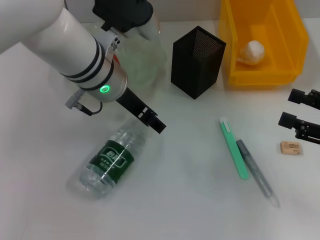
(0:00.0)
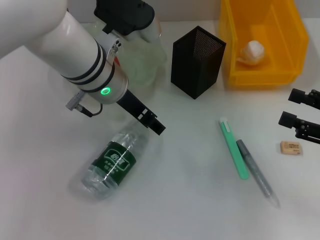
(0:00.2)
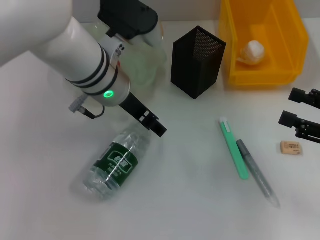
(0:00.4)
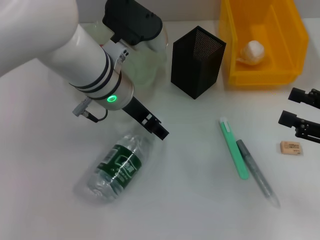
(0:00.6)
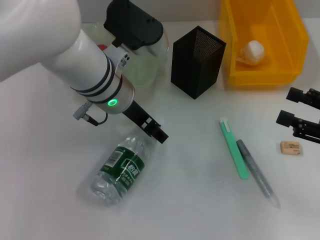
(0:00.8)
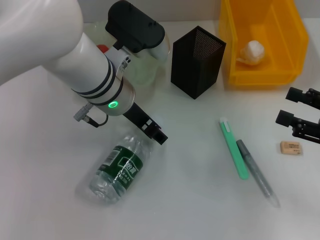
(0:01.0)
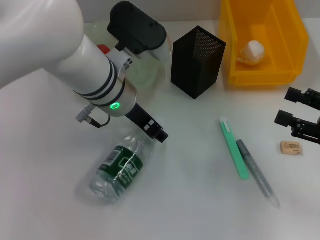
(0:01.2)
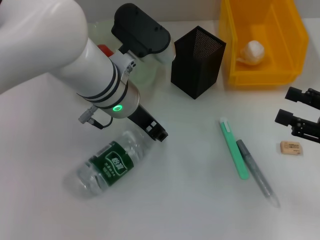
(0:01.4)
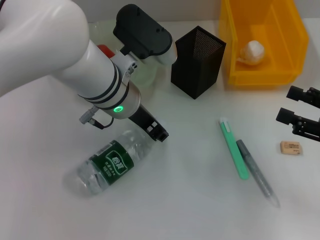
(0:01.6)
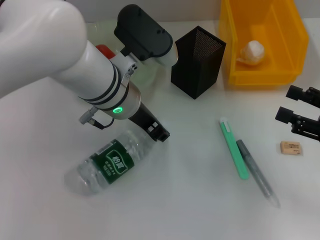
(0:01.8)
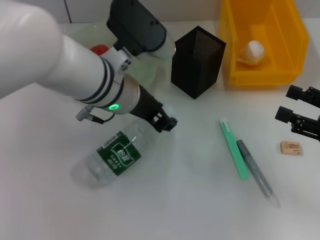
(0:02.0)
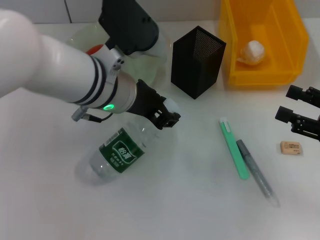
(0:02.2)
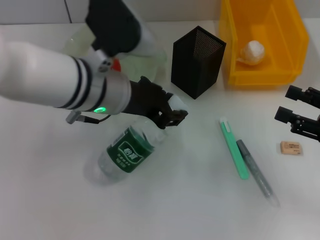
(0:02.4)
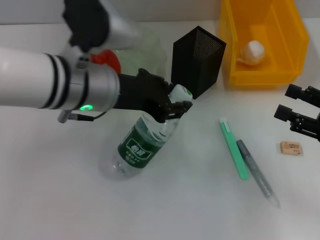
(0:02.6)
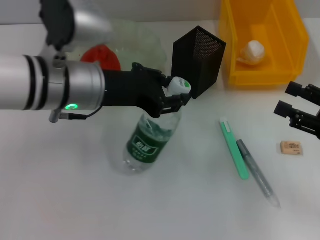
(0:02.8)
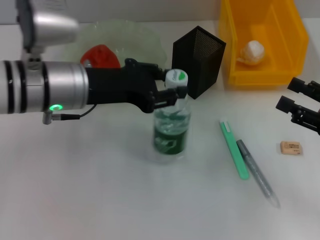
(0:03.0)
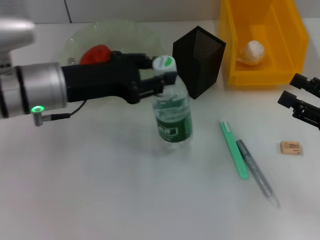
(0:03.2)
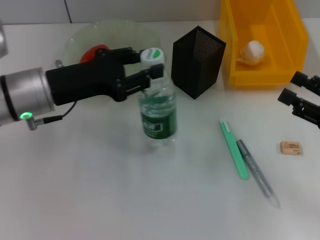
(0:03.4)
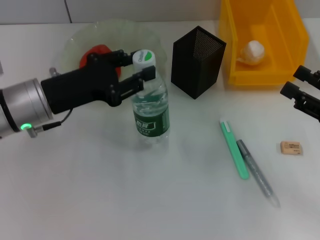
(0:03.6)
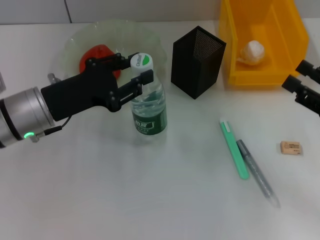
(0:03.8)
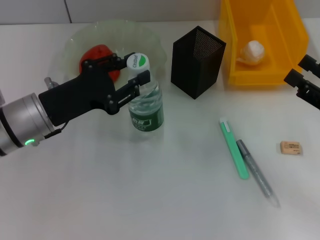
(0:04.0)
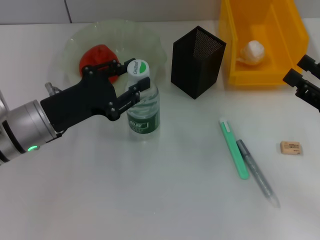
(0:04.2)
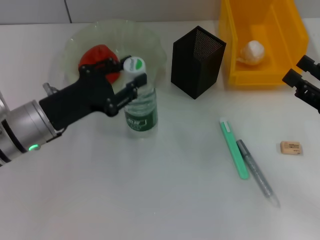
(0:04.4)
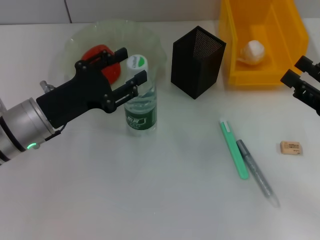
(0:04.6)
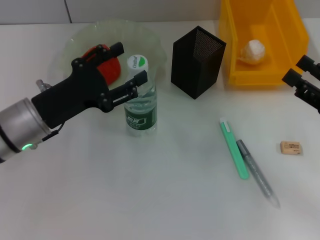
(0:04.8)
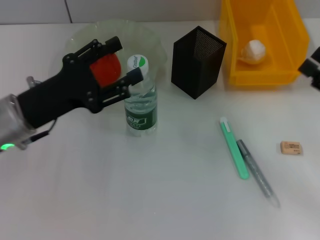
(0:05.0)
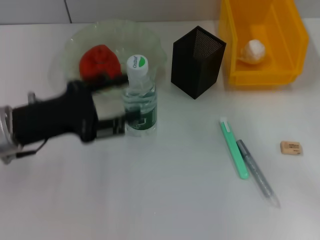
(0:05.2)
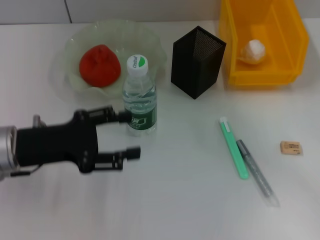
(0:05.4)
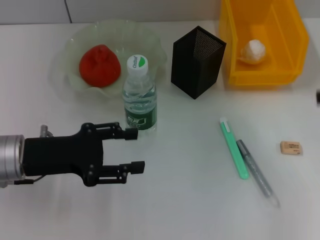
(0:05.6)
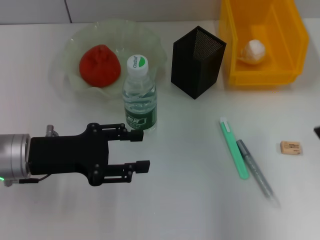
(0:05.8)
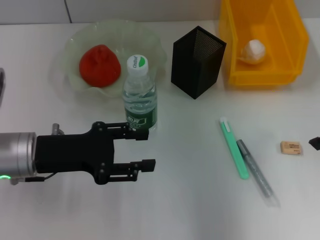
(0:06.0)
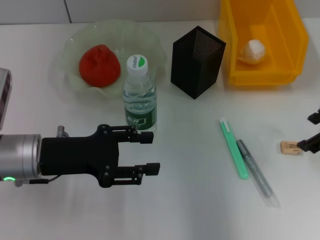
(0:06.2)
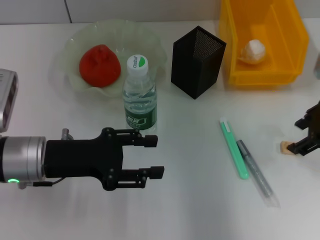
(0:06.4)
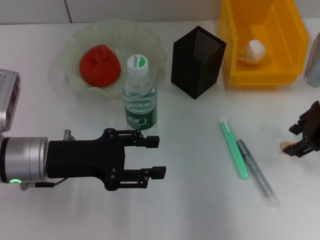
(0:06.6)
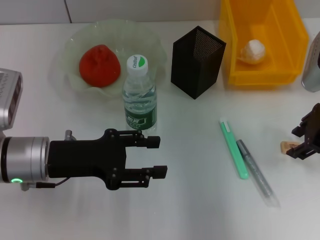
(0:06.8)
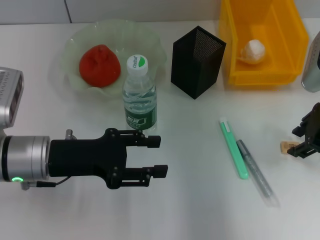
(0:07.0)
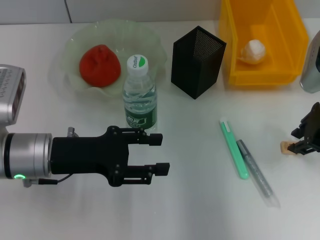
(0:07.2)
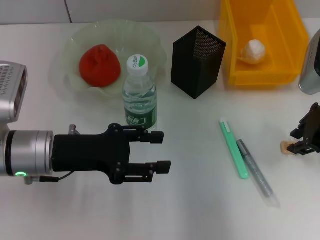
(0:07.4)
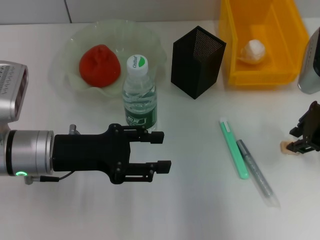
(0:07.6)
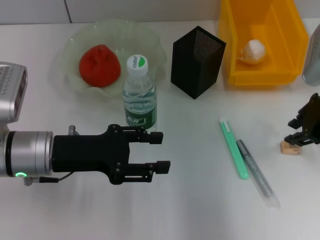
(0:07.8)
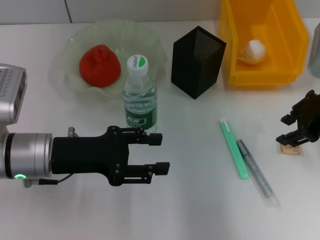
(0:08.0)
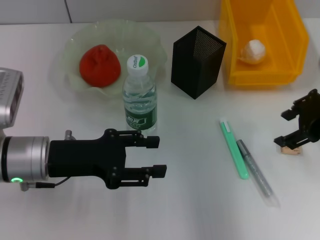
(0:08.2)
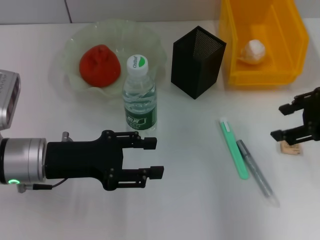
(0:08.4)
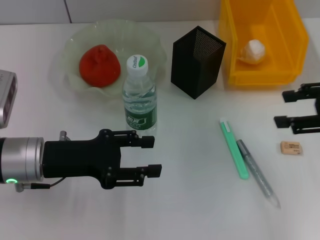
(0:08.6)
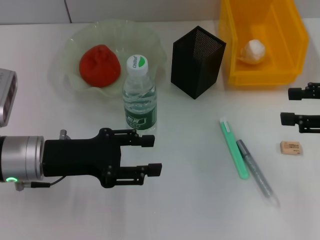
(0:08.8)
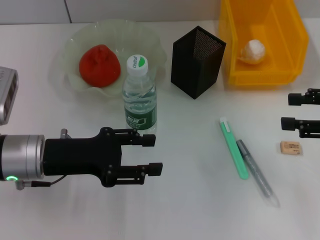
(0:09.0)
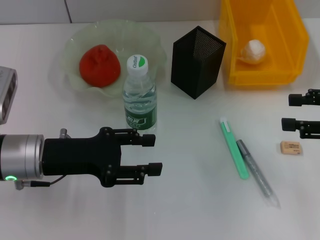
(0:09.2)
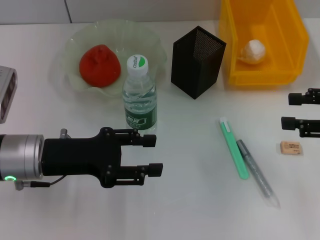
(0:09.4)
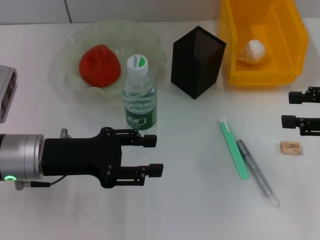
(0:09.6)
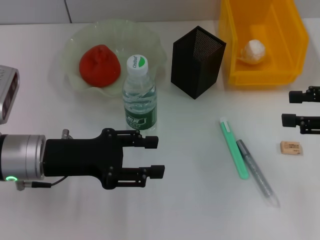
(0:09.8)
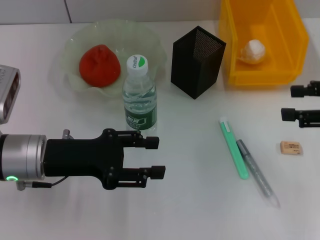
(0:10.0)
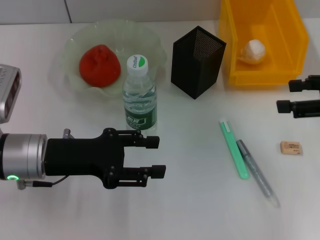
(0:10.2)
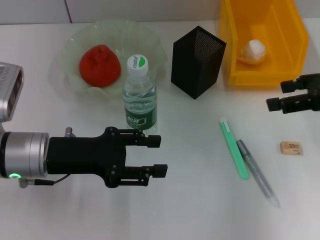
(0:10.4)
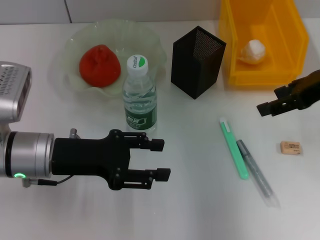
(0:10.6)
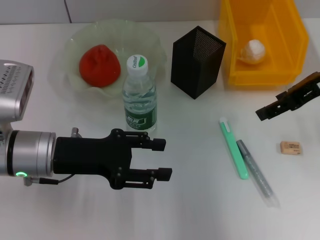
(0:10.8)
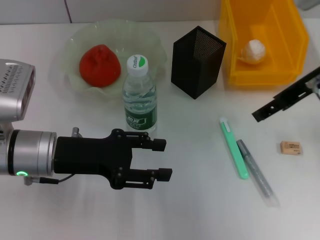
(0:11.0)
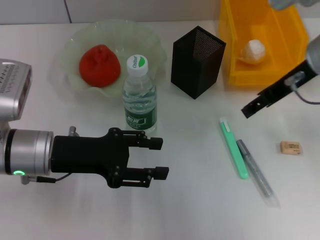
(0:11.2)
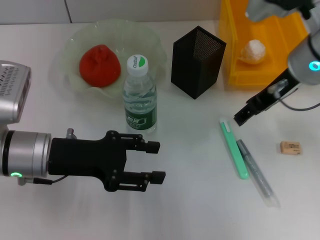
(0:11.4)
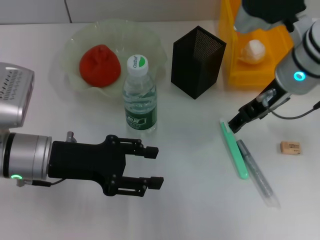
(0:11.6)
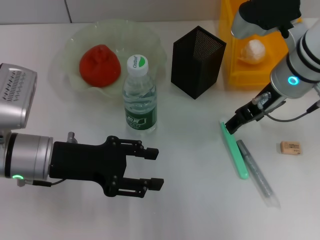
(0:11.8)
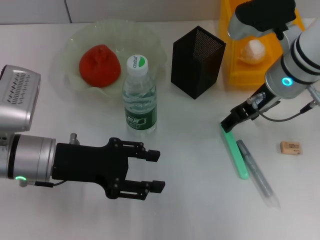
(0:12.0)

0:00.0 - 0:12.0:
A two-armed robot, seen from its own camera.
Step, 0:01.8 - 0:04.6: Place the water bottle on the table with the left hand.
0:00.0 - 0:01.6: The left gripper closes.
0:01.6 - 0:03.0: The left gripper goes approximately 10 cm to the left.
0:03.0 - 0:04.4: The left gripper goes roughly 10 cm downward and to the left.
0:04.4 - 0:06.0: The right gripper travels upward and forward by some 15 cm.
0:06.0 - 0:07.6: The right gripper heads downward, covering approximately 5 cm, and closes.
0:07.6 - 0:09.0: The right gripper travels to the right and backward by some 10 cm, and opens.
0:09.0 - 0:10.4: The right gripper changes place by approximately 5 cm.
0:10.4 - 0:12.0: The right gripper shifts approximately 15 cm to the left.

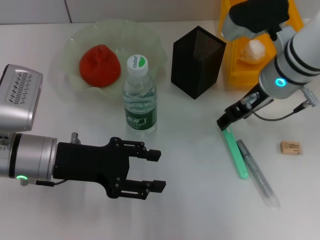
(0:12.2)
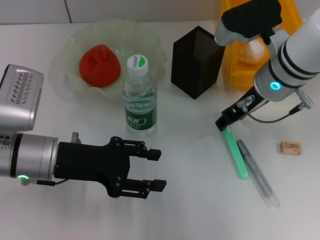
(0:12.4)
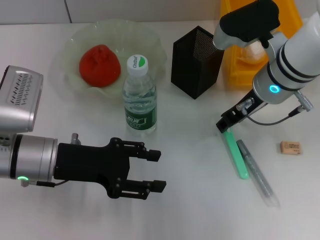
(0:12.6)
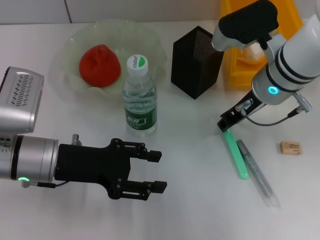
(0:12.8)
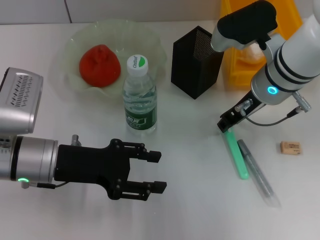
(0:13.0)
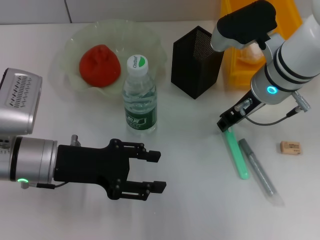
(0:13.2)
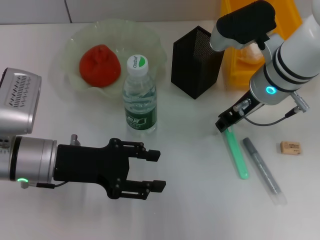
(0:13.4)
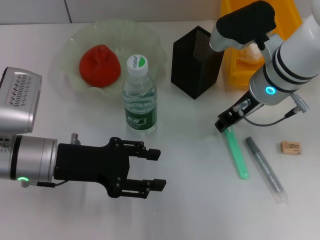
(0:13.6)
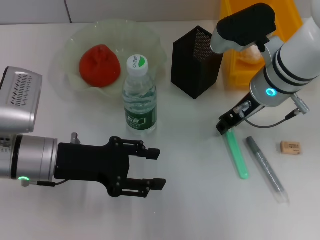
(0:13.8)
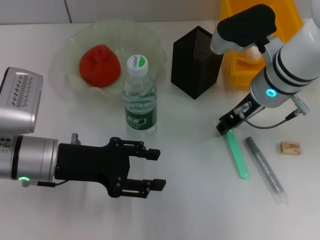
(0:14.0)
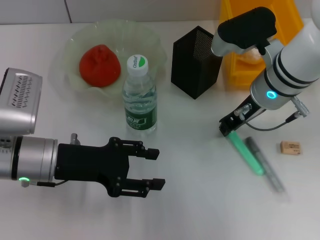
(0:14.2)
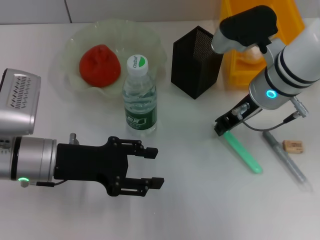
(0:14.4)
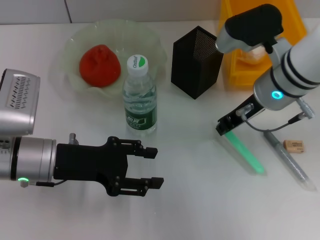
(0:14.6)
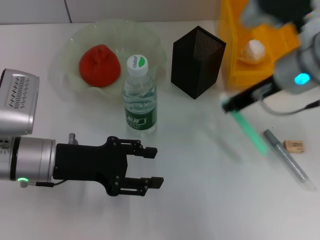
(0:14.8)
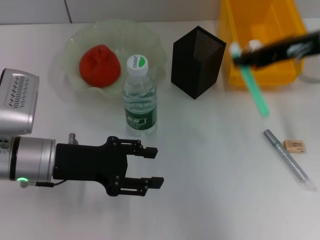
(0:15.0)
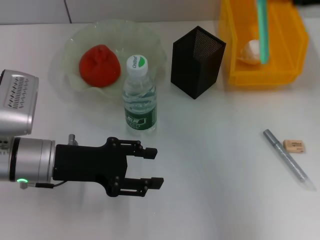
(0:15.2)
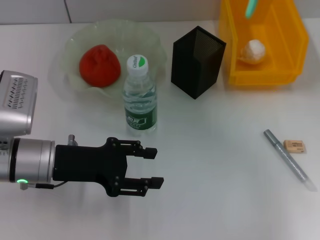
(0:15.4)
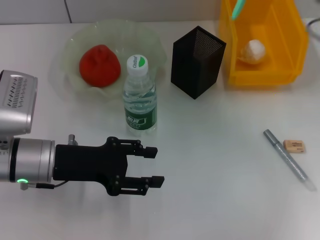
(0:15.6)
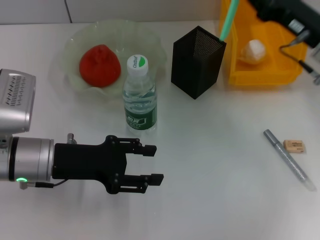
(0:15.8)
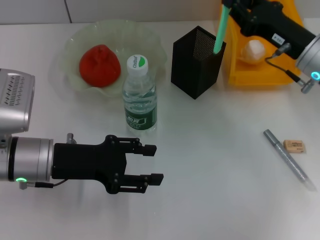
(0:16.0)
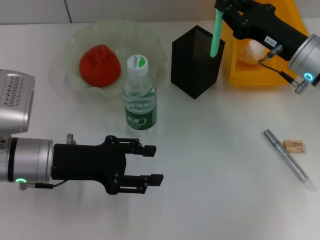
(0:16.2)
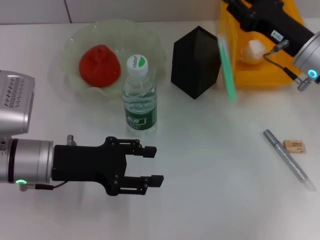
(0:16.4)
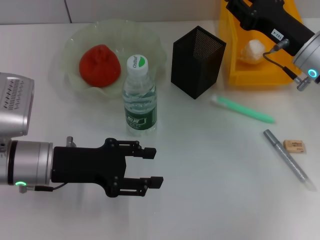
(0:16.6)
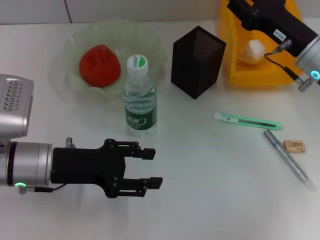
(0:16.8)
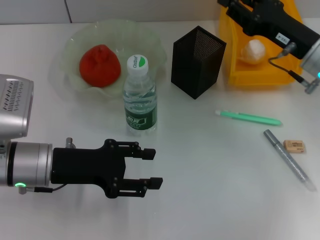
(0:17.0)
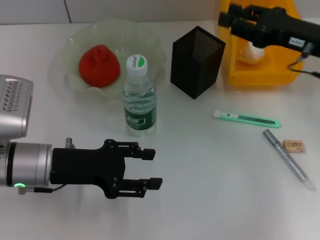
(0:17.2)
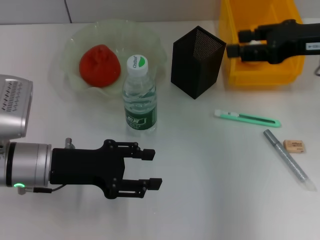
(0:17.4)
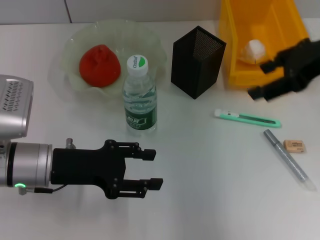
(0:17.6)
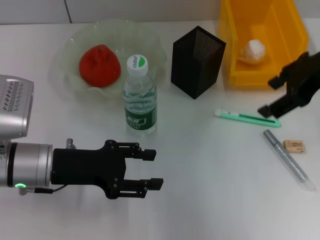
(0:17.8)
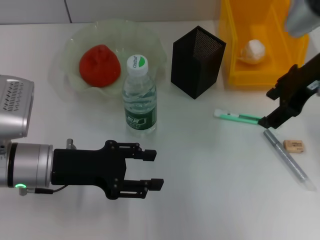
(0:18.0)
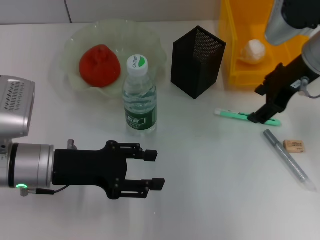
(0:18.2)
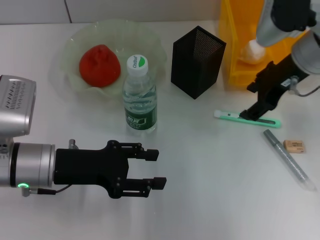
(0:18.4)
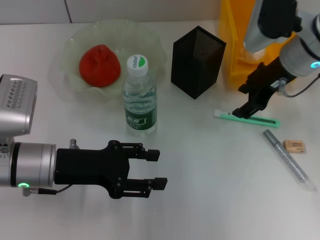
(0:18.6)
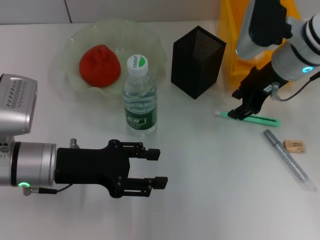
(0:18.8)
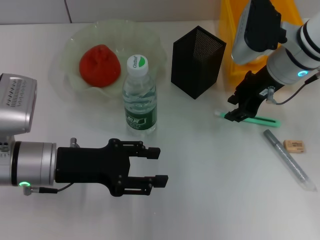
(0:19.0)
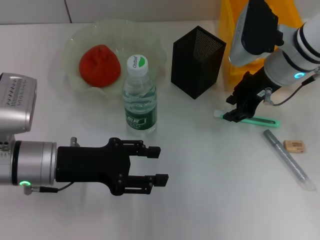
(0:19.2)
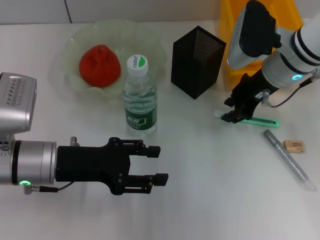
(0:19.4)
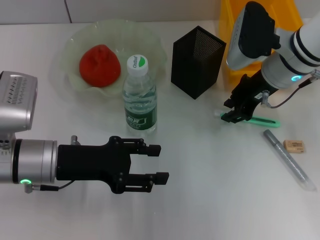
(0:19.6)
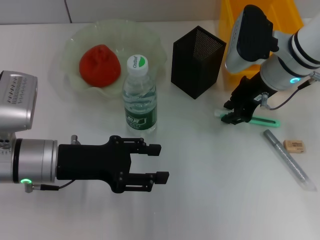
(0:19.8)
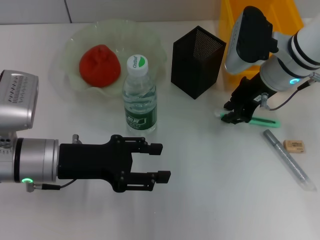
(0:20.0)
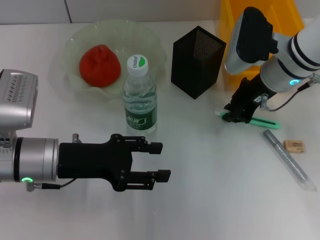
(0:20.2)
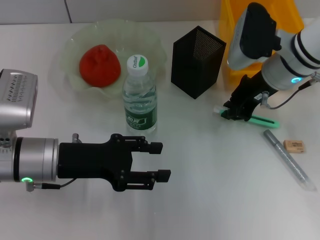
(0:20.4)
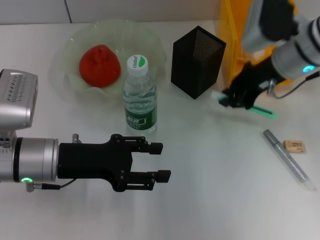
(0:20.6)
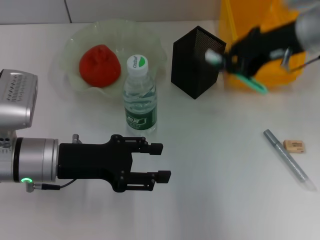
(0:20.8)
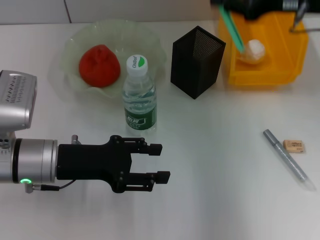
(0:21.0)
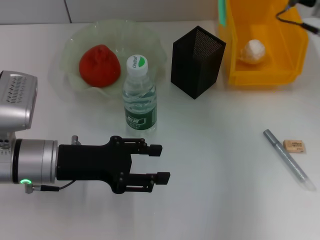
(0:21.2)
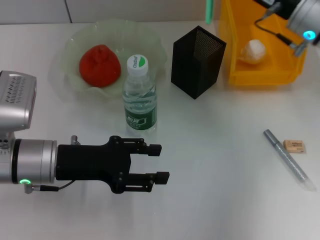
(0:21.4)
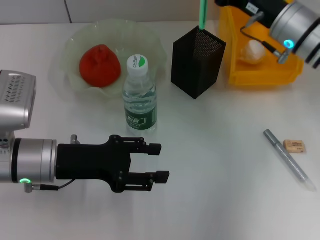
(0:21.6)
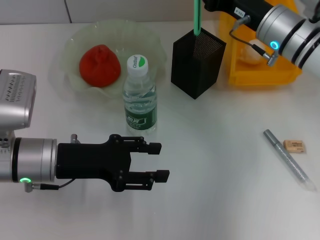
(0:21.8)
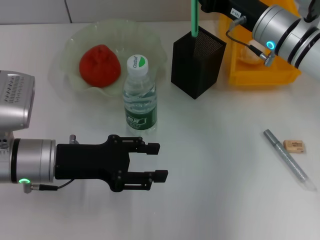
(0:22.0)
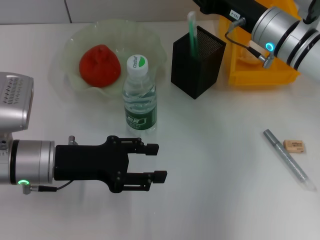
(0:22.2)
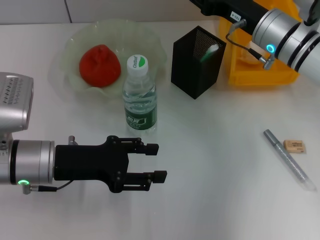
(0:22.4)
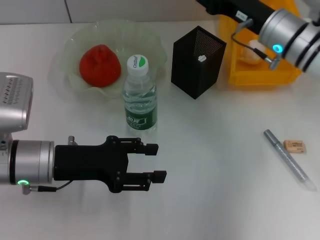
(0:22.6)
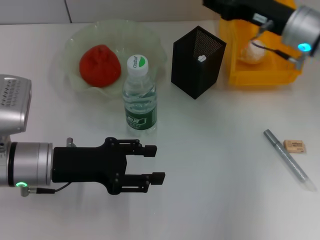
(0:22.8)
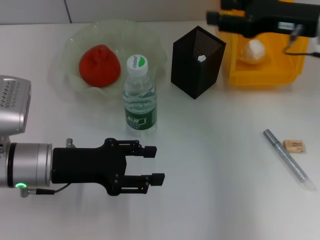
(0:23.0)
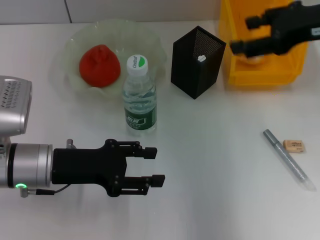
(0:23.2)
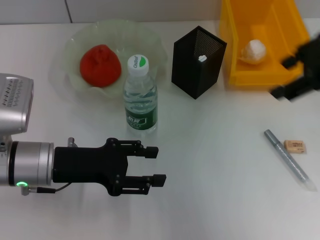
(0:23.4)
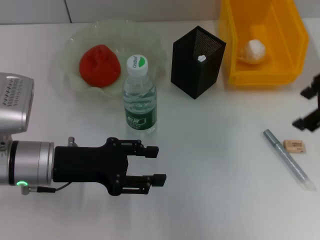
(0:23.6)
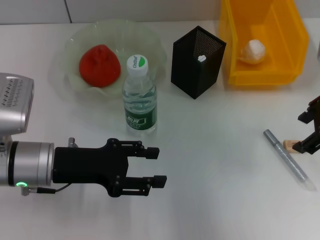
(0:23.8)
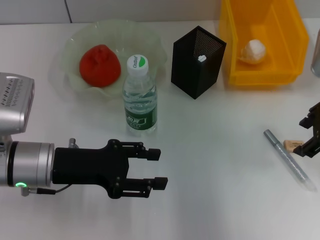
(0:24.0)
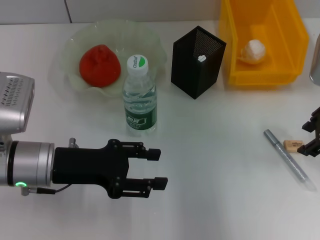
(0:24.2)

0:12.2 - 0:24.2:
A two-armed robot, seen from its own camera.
Step, 0:12.2 - 0:14.2: Grab the blue utility knife with the right hand.
Step, 0:14.4 - 0:22.4: Place the blue utility knife into the pen holder with the right hand.
0:12.2 - 0:13.8: The right gripper closes.
0:13.8 - 0:15.2: The right gripper is displaced upward and to the right by about 20 cm.
0:15.2 - 0:16.6: The right gripper shifts roughly 15 cm downward.
0:16.6 - 0:18.2: The right gripper moves upward, roughly 10 cm, and opens its fingers.
0:18.2 - 0:19.8: The right gripper heads downward, covering some 5 cm, and closes.
0:19.8 - 0:21.2: The right gripper travels upward and to the right by roughly 10 cm.
0:21.2 - 0:22.6: The right gripper is displaced downward by approximately 5 cm, and opens.
0:22.6 - 0:24.2: The right gripper heads to the right and backward, covering some 10 cm, and travels upward and back again, about 15 cm each way.
